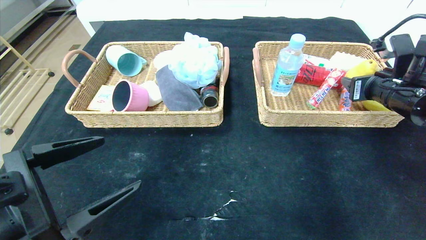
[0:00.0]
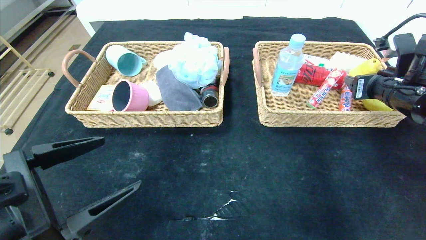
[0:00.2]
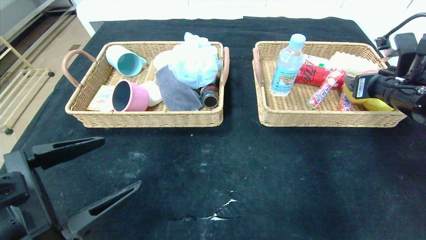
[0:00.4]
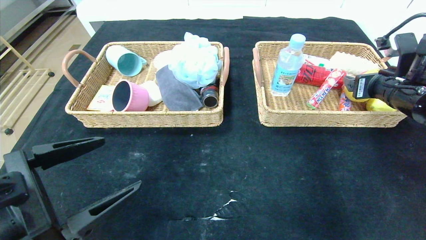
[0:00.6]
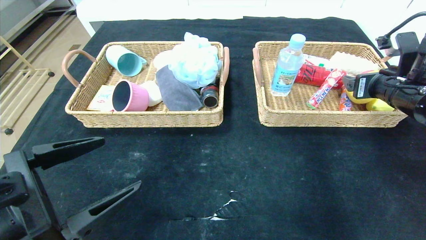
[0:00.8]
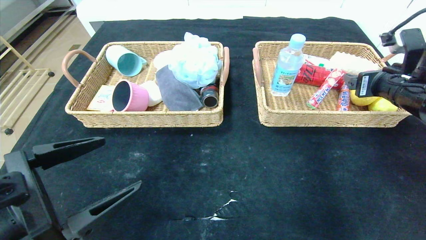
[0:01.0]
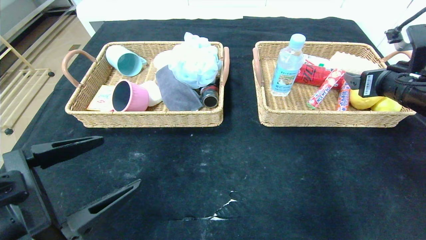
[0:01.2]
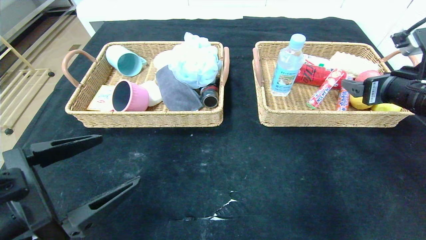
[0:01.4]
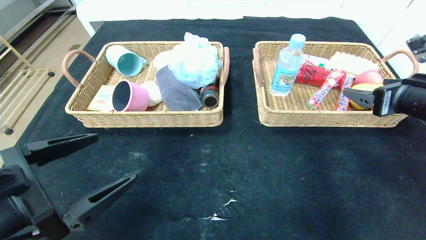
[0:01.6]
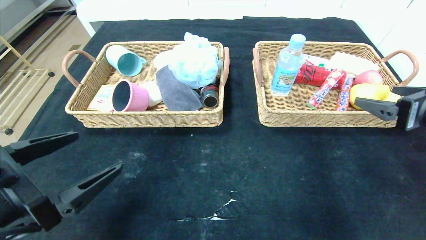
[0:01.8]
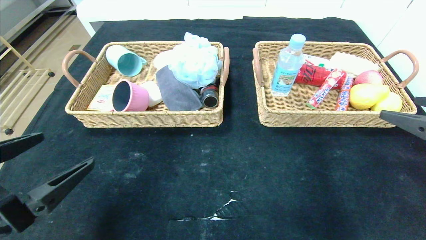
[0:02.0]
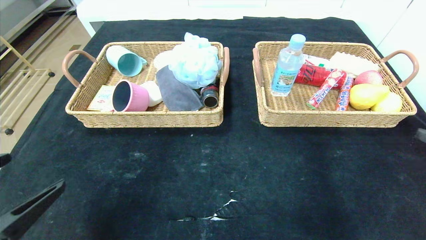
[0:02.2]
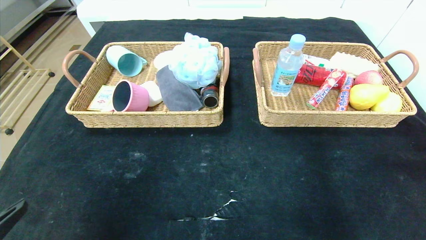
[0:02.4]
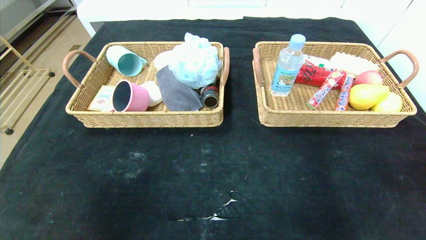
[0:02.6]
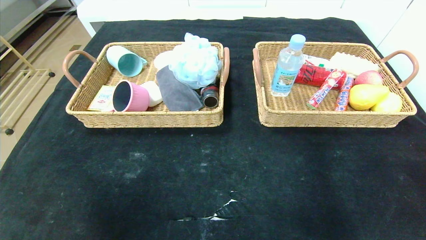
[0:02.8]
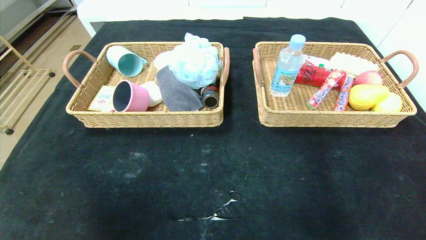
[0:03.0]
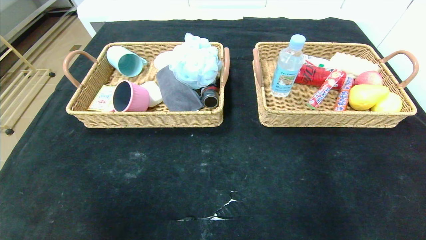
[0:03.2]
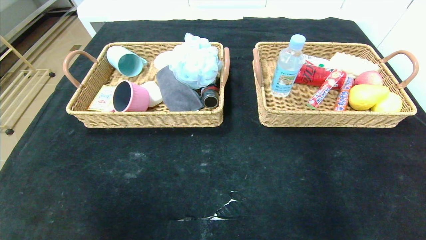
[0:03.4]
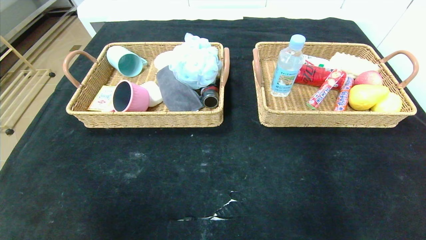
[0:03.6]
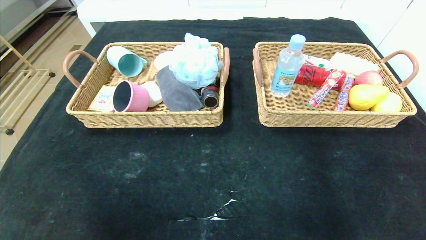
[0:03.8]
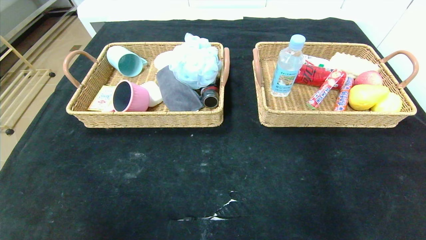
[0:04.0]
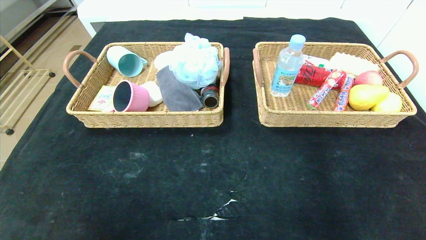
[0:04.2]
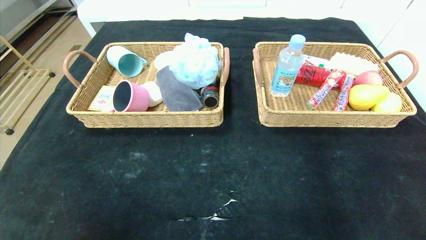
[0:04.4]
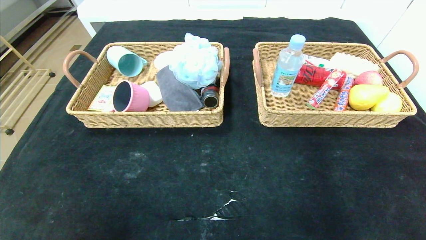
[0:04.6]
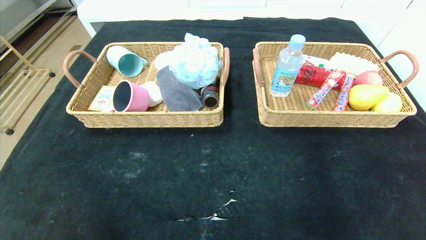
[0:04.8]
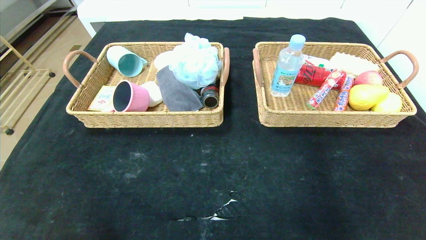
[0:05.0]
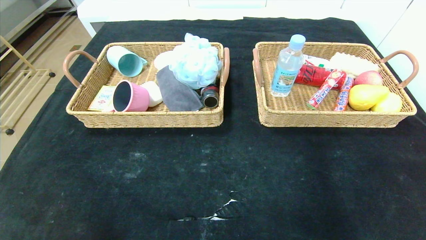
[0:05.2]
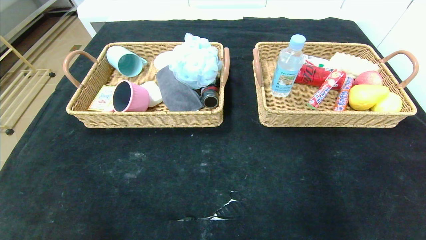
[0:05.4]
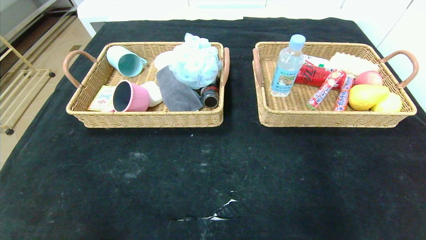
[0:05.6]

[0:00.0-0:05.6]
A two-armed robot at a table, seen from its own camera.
0:00.0 to 0:01.4: The right gripper opens up.
0:01.4 to 0:02.8: The left gripper shifts approximately 15 cm backward, while the right gripper moves backward, approximately 30 cm.
